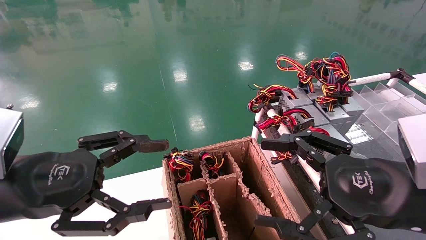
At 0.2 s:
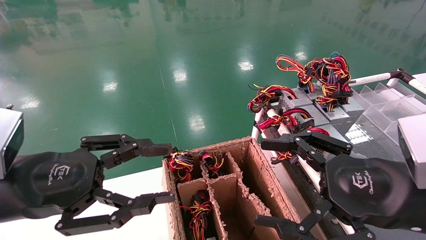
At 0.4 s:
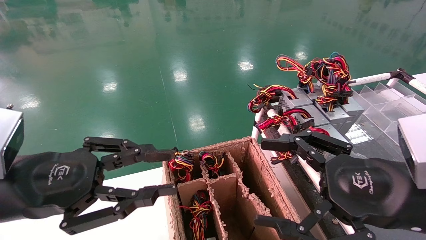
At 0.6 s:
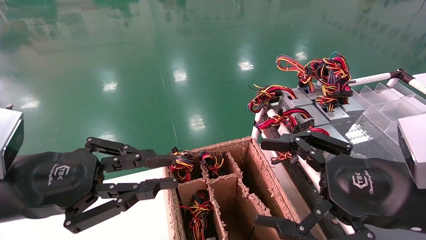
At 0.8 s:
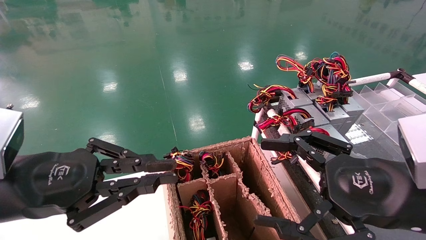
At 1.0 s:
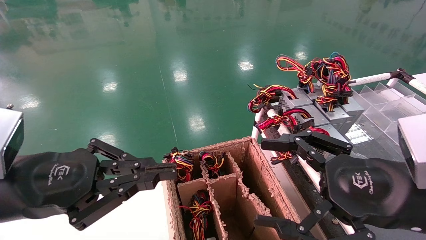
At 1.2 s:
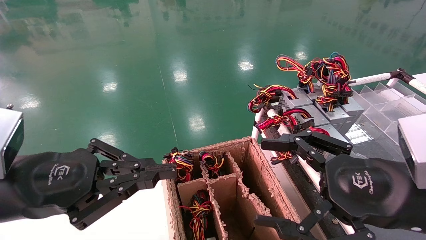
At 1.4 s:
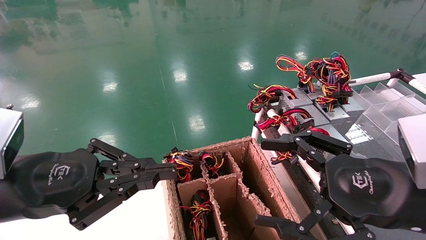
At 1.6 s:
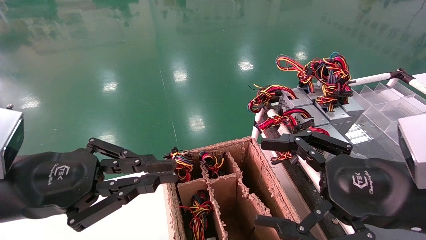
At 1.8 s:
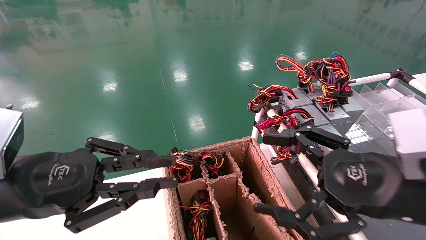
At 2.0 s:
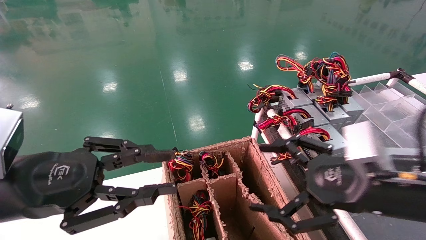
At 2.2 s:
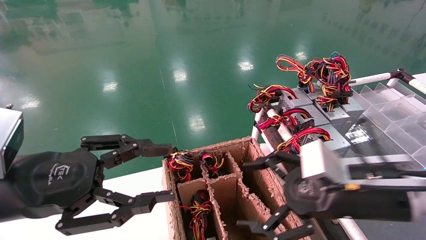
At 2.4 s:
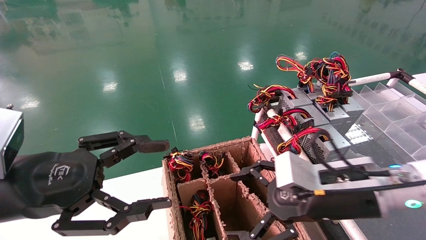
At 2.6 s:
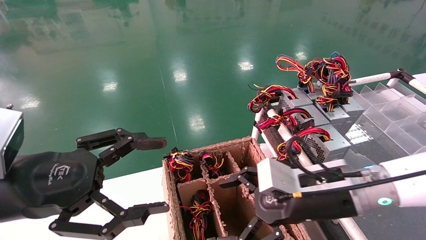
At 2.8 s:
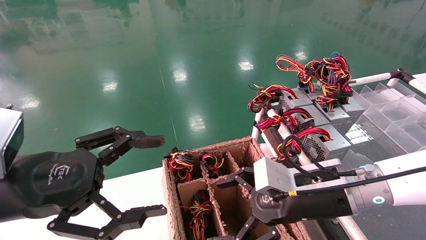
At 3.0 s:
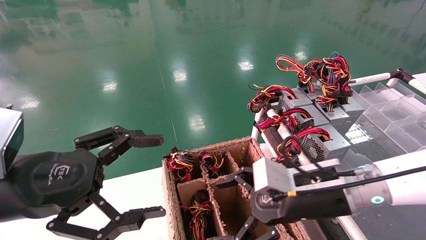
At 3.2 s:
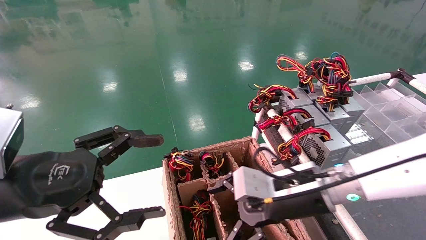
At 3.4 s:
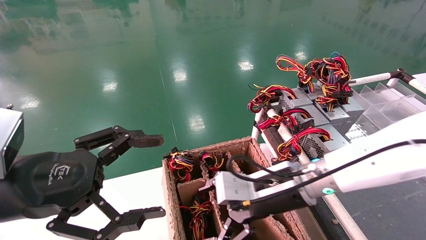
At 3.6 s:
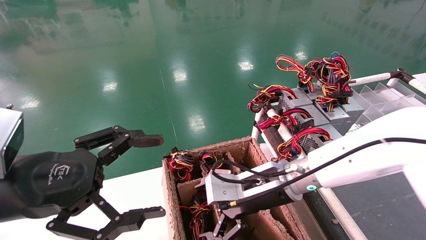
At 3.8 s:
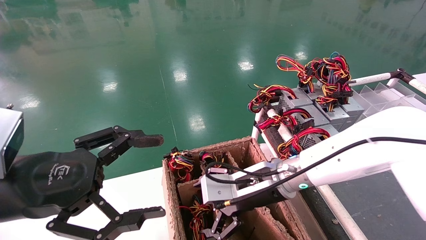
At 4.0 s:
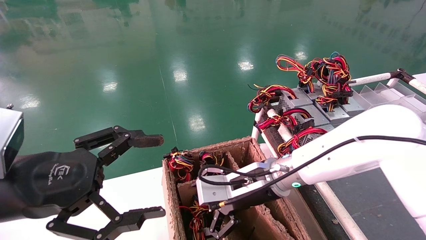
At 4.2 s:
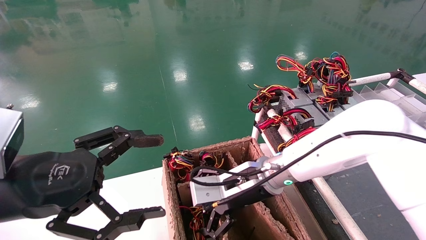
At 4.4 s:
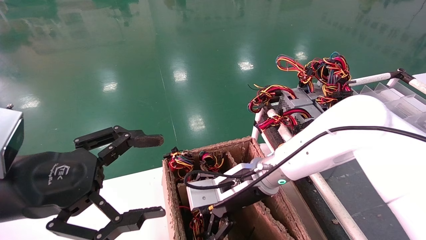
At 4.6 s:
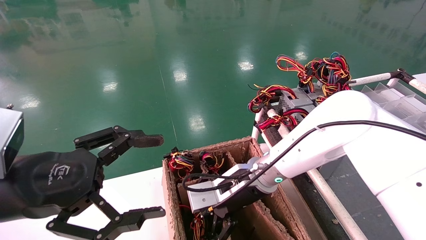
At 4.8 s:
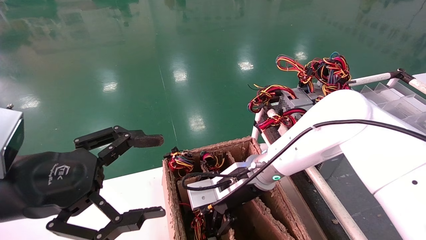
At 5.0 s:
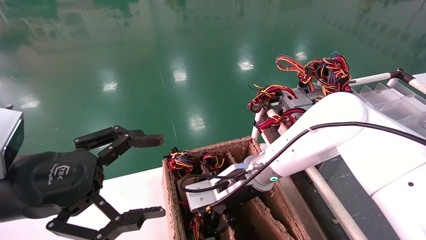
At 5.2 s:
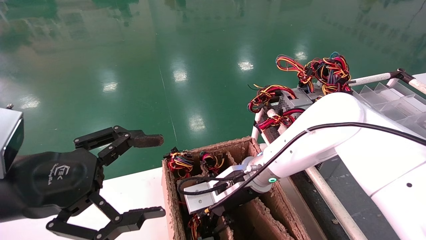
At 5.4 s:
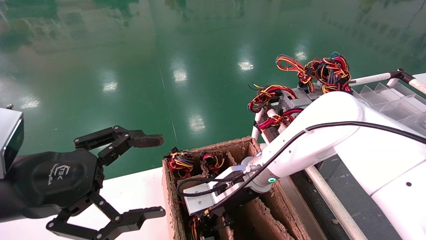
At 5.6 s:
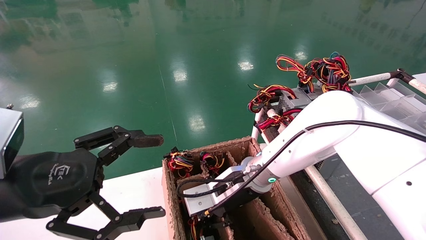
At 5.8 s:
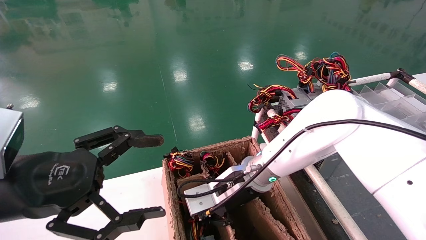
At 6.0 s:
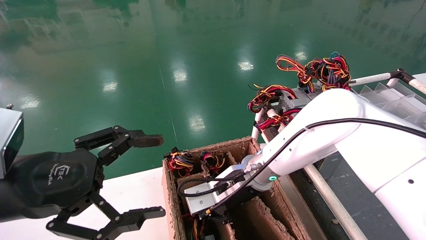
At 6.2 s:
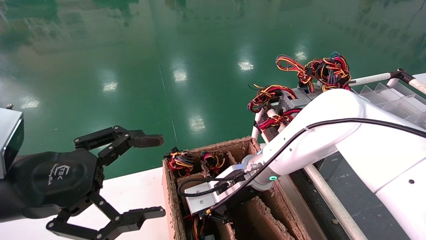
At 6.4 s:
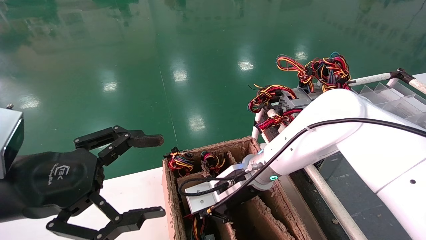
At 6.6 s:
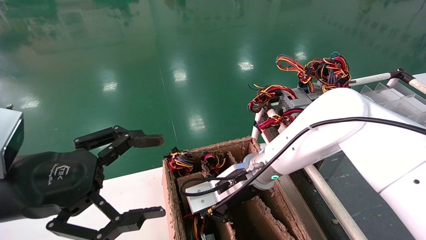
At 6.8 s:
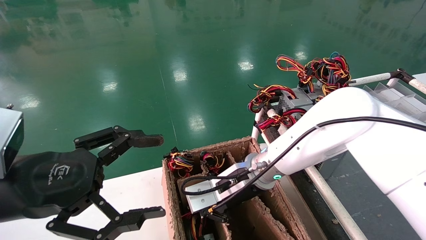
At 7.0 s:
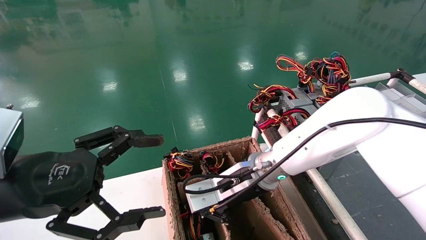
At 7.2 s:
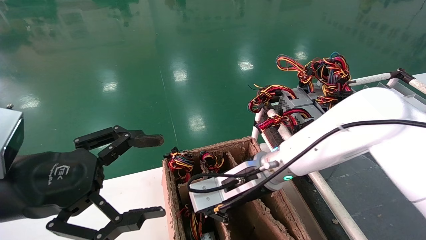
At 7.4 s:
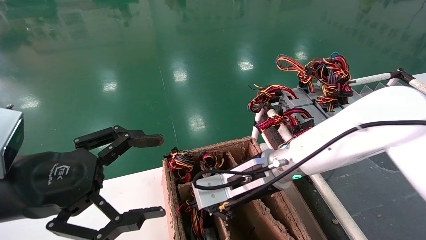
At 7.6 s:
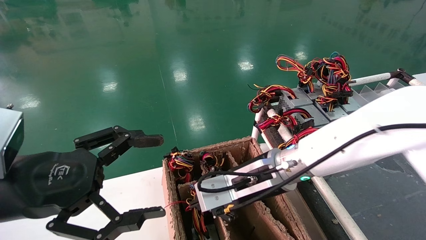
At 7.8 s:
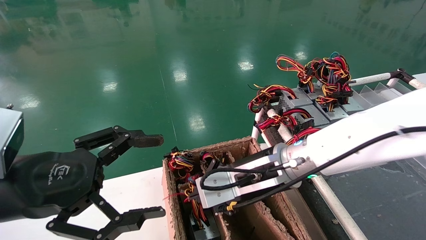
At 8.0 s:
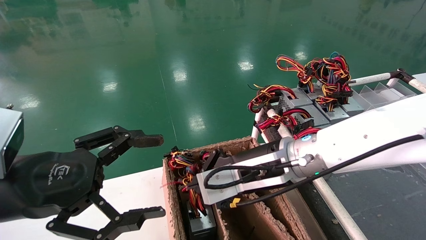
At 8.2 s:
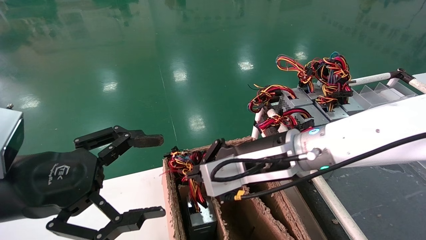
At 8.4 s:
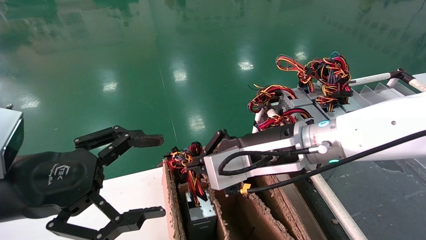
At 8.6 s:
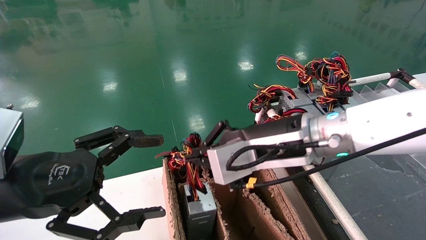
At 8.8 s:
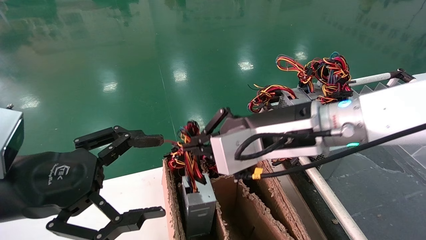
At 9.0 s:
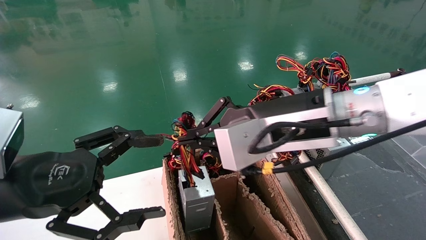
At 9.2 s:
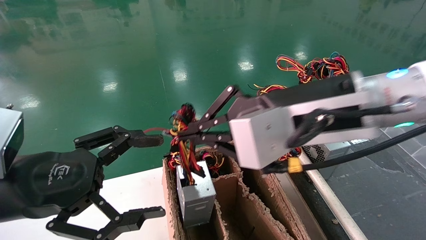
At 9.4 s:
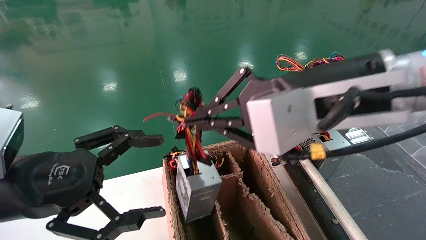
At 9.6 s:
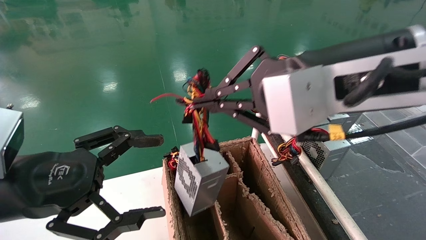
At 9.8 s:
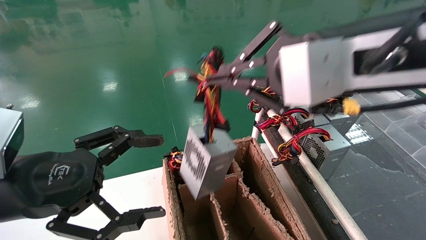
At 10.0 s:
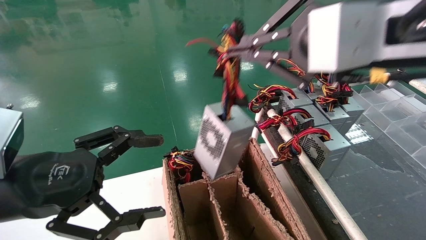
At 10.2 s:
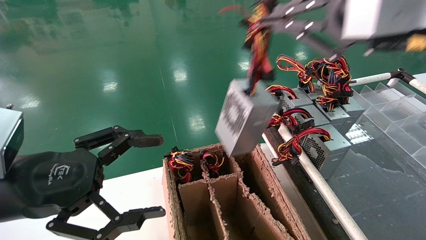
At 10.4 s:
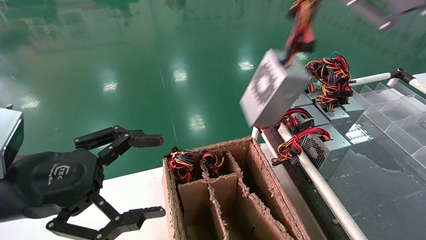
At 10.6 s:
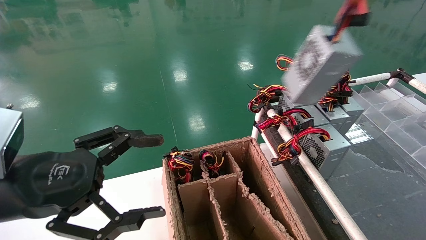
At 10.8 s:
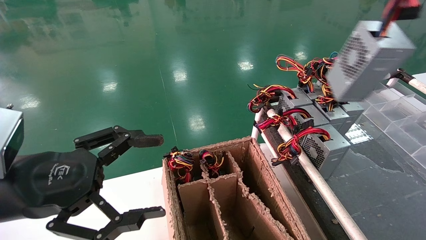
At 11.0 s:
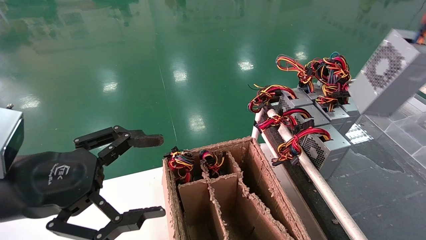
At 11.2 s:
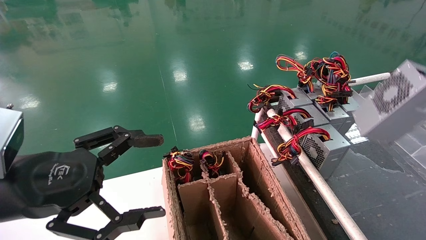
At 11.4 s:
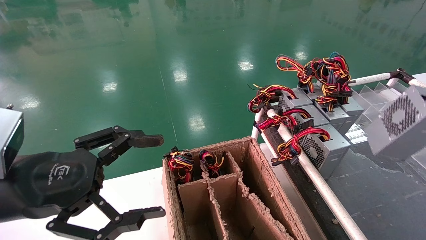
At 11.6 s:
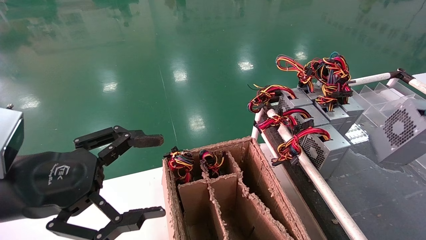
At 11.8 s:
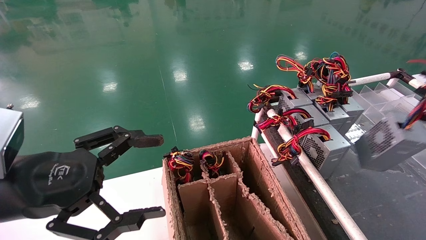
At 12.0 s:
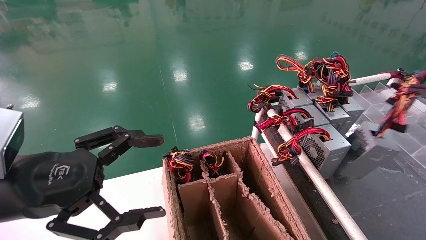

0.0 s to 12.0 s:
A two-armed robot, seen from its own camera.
Step, 1.0 to 6.2 s: Grab and lift the power supply from the large box.
0.0 to 1.6 s: The left gripper closes.
1.6 to 3.0 s: The right gripper travels forward, to the left and downward by about 15 cm; the left gripper opens its fingers.
3.0 to 4.4 s: The right gripper moves to the left and forward, roughly 10 cm.
4.4 to 6.0 s: The right gripper closes its fingers.
6.0 to 7.6 s: The right gripper moves some 5 cm.
7.6 to 9.0 s: The right gripper goes some 15 cm upward and backward.
9.0 to 10.4 s: The right gripper is displaced to the right, upward and backward by some 25 cm.
10.4 to 12.0 s: The right gripper travels to the right and downward by approximately 20 cm.

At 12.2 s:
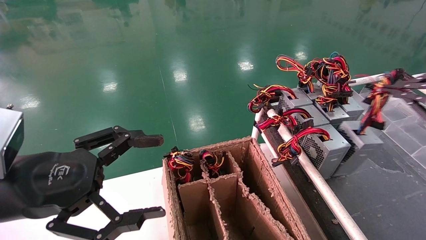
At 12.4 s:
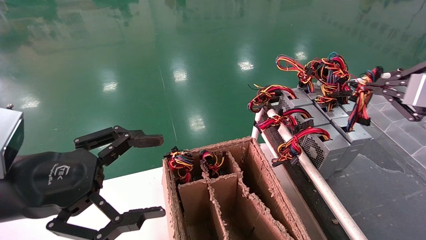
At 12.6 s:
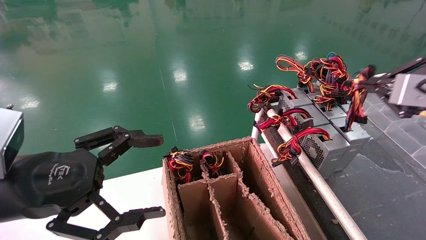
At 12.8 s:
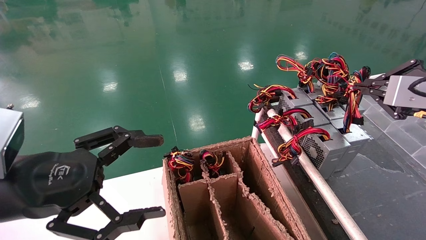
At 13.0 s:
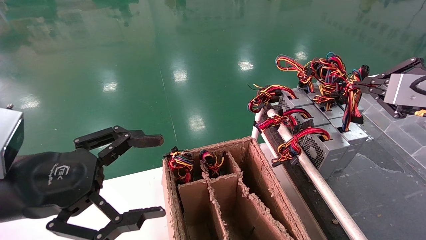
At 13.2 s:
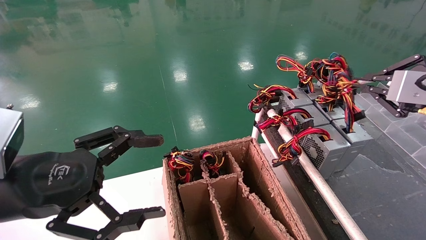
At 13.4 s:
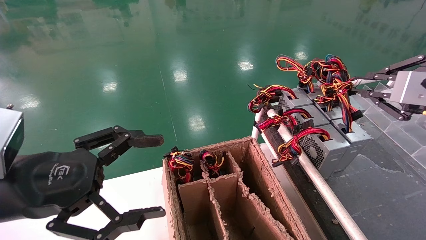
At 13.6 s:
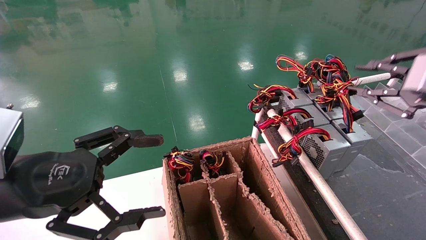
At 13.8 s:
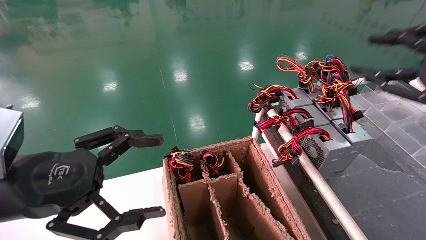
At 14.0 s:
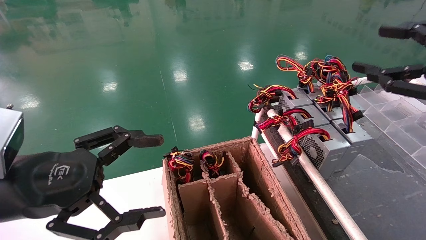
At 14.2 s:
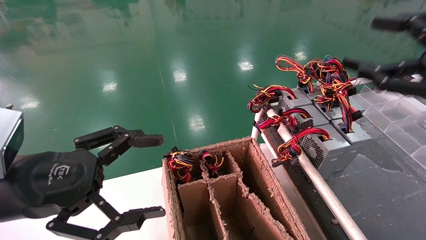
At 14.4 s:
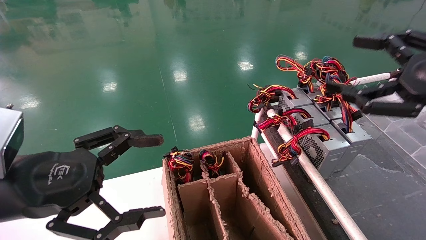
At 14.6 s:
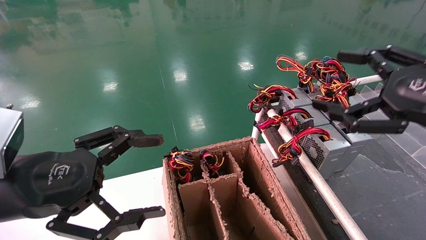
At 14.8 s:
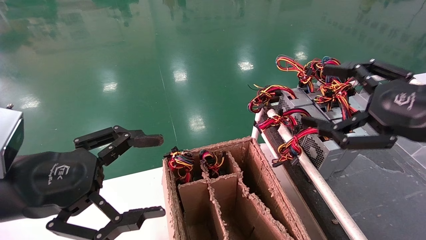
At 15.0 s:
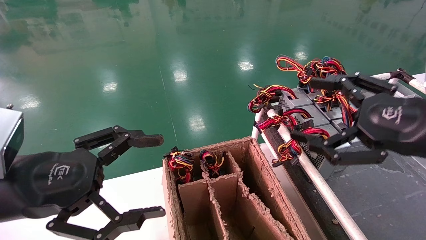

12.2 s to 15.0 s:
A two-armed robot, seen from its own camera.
12.2 to 13.6 s: The grippers make only small movements.
13.6 to 15.0 s: The right gripper heads to the left, covering some 5 cm, and opens.
